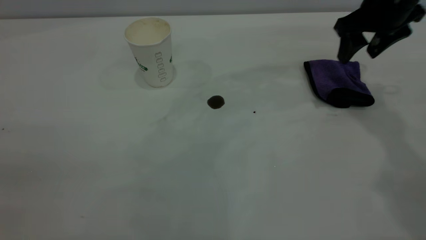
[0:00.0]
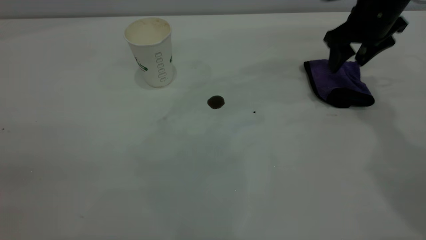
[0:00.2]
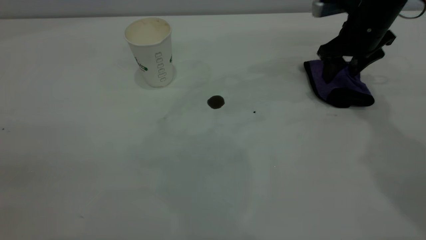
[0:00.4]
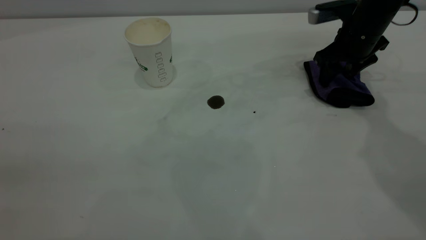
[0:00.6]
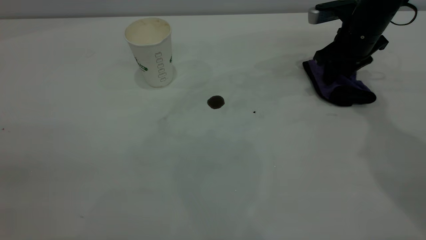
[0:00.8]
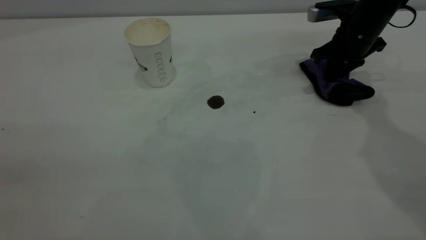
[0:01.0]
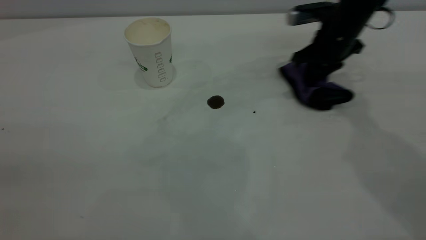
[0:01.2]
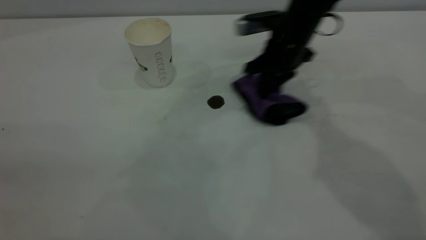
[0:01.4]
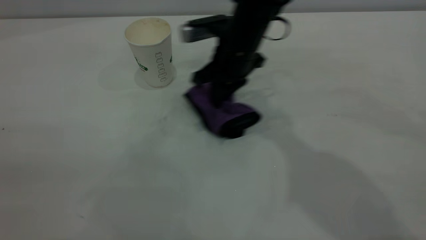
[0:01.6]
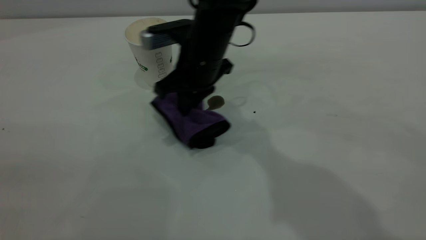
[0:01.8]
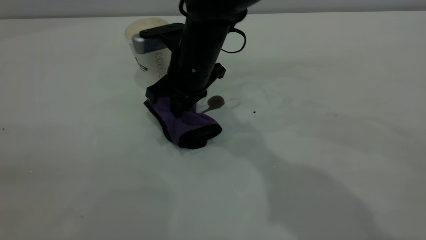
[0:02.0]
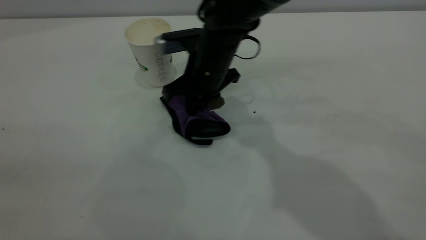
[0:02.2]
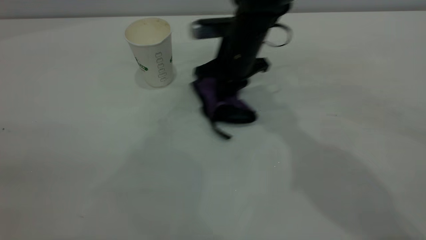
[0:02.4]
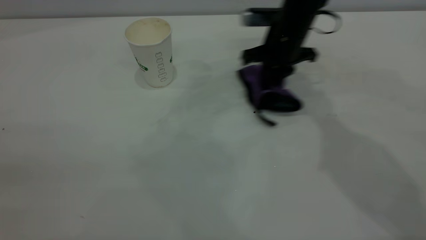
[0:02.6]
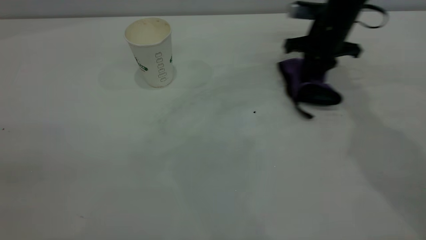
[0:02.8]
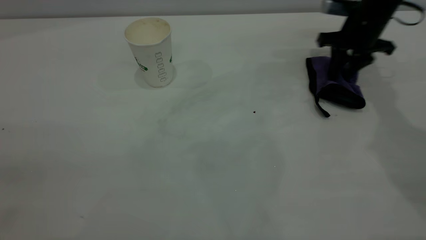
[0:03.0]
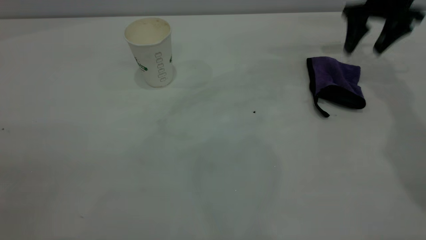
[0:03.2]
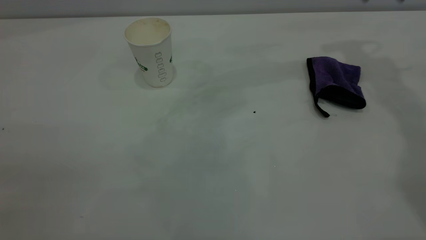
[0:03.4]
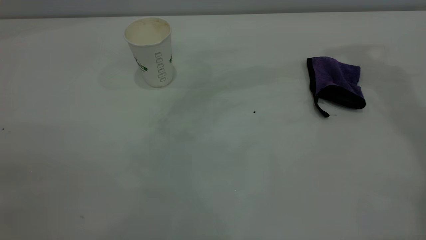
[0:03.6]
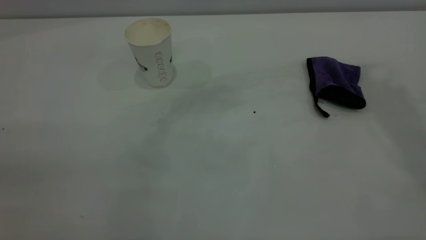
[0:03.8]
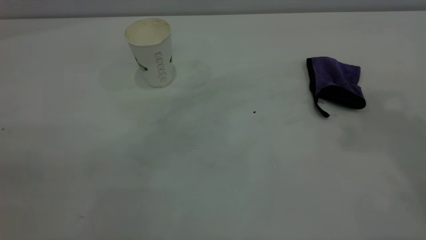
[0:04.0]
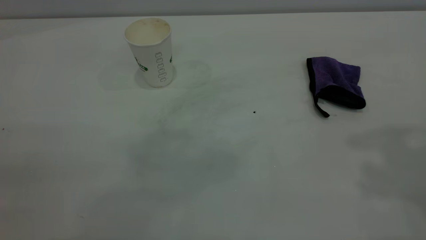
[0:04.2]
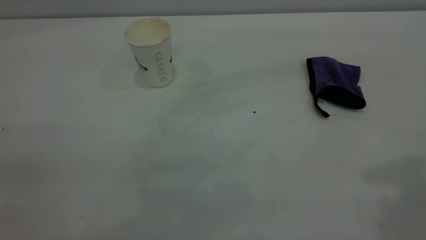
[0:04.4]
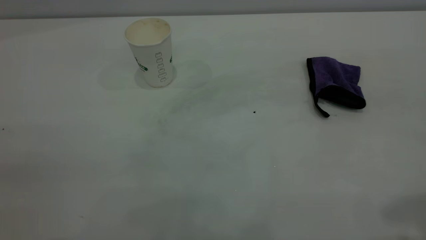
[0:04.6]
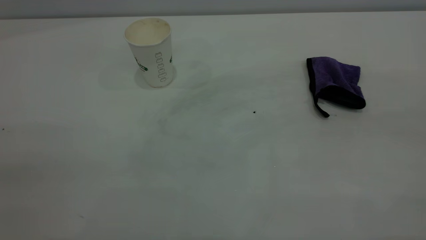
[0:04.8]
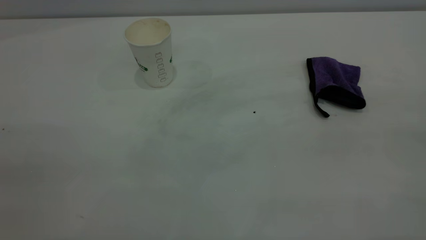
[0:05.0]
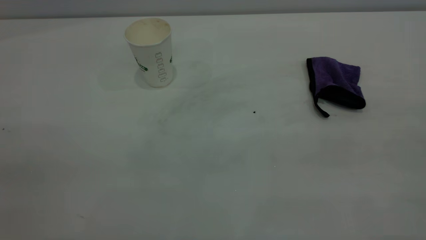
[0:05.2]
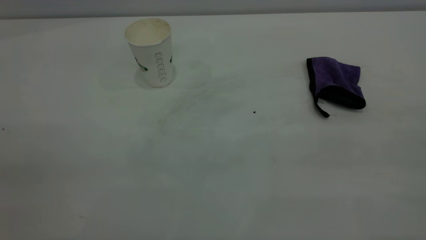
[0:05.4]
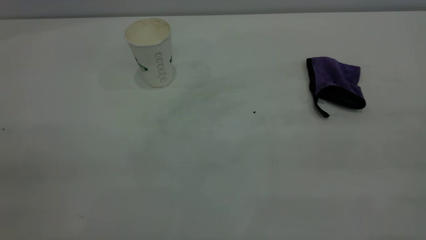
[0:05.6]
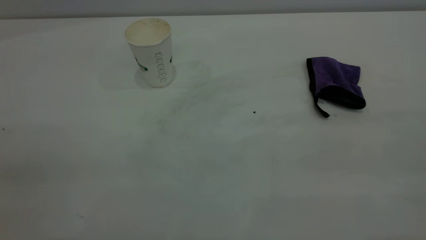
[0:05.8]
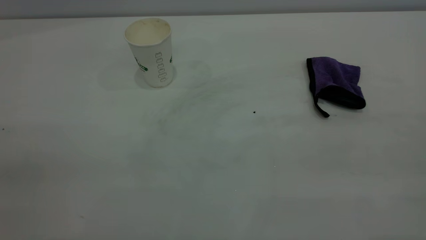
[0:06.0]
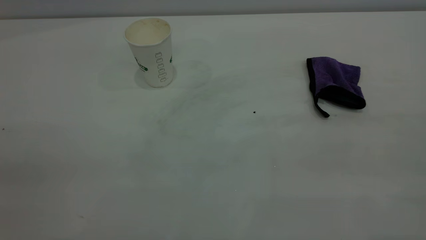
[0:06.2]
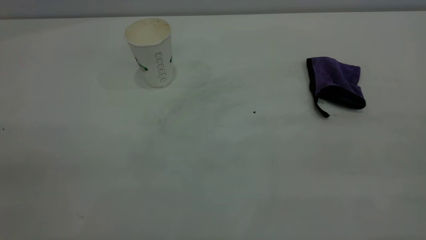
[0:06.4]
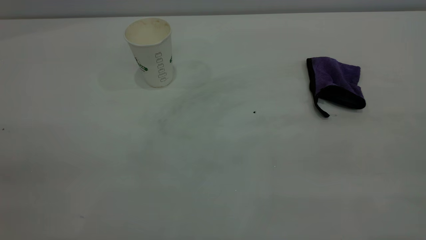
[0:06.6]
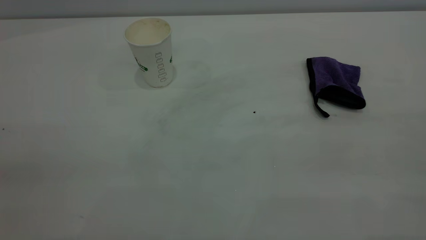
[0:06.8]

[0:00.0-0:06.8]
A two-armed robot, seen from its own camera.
Task of the whole recording: the left gripper pick up the fallen cup and place it upright, the right gripper grasp the purple rag and wipe the coffee stain on the table, the right gripper put the purple rag back in its original position.
Step, 0:00.0 to 0:03.0: Wipe the stains off the table with a rag.
0:00.0 to 0:01.4: The right gripper shifts approximately 15 cm to the left, and closes.
0:01.4 to 0:02.8: The right gripper moves to the right, about 15 cm.
0:02.8 to 0:04.0: The right gripper goes some 40 cm upward and backward, and opens up.

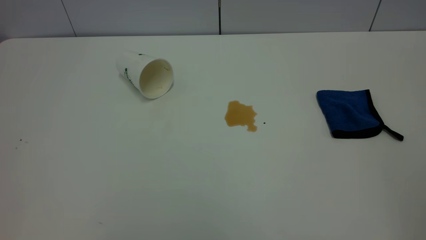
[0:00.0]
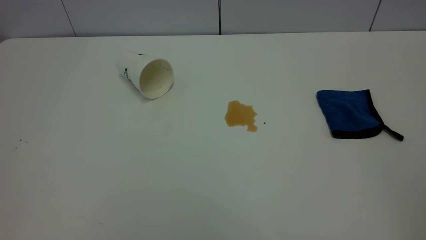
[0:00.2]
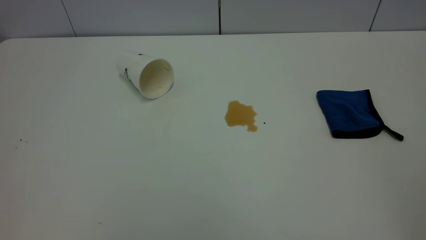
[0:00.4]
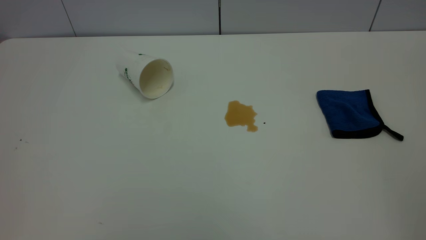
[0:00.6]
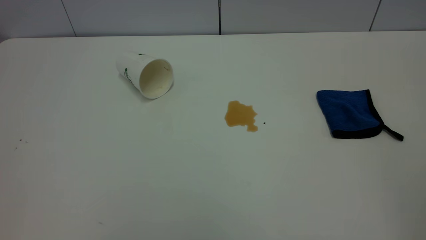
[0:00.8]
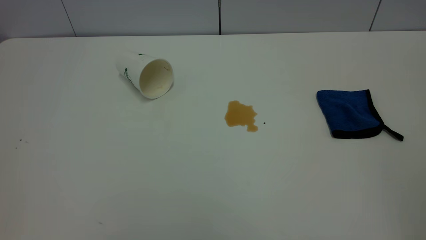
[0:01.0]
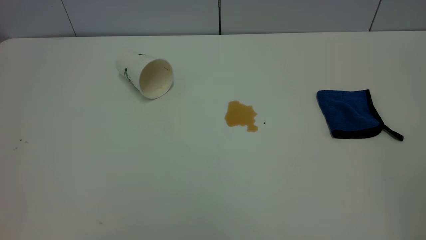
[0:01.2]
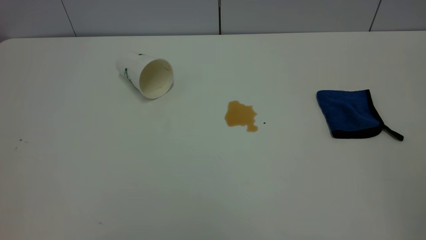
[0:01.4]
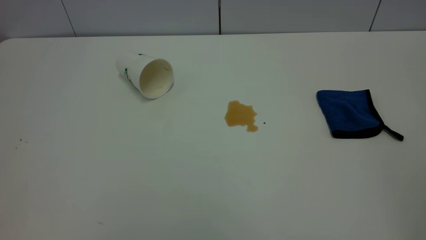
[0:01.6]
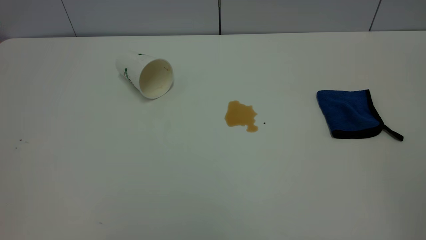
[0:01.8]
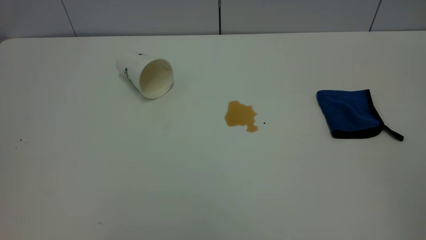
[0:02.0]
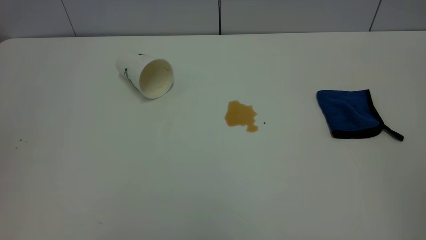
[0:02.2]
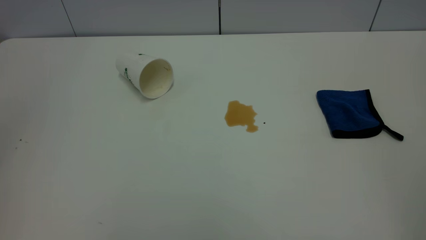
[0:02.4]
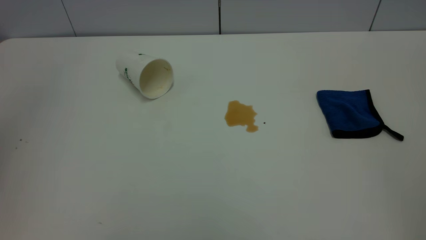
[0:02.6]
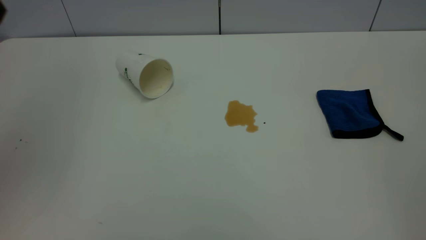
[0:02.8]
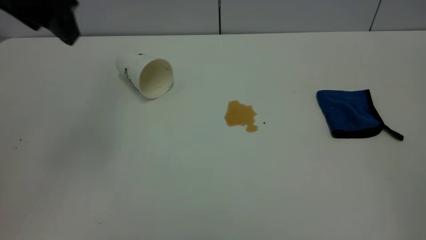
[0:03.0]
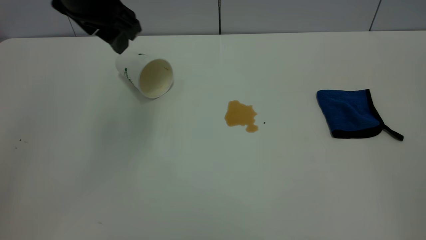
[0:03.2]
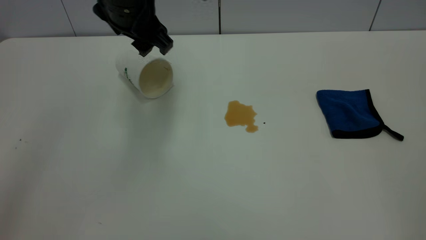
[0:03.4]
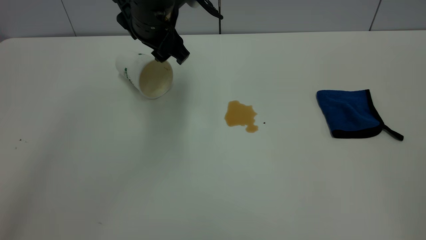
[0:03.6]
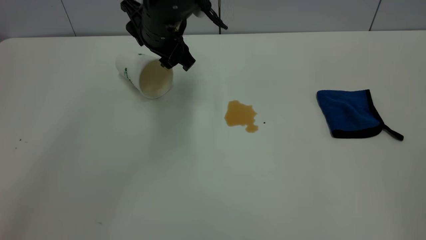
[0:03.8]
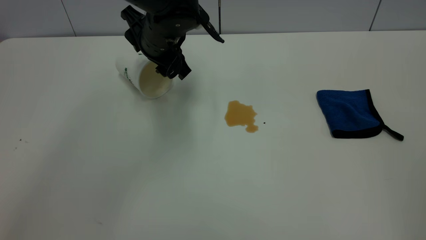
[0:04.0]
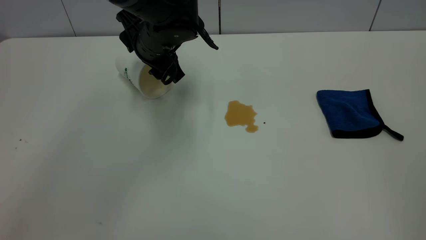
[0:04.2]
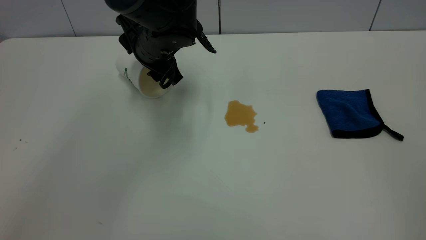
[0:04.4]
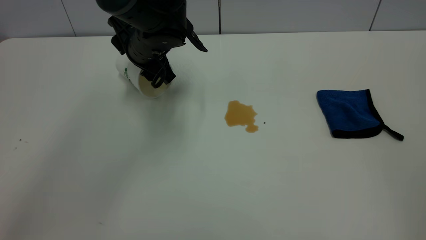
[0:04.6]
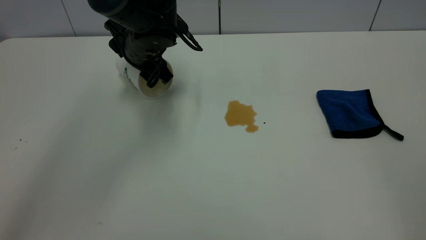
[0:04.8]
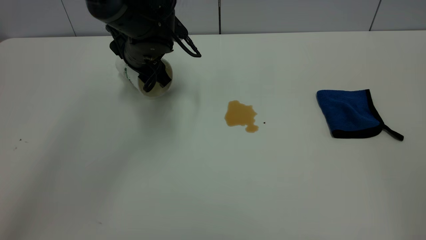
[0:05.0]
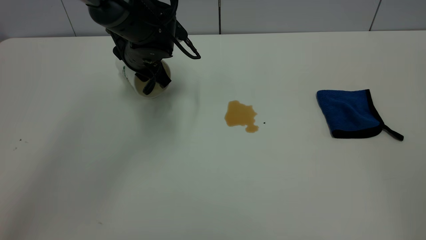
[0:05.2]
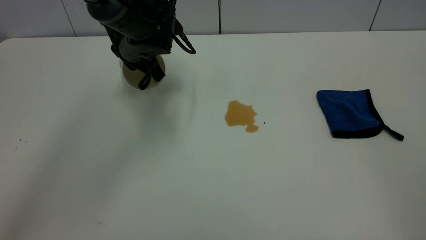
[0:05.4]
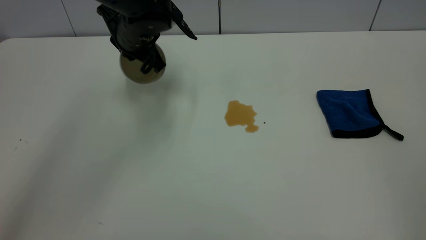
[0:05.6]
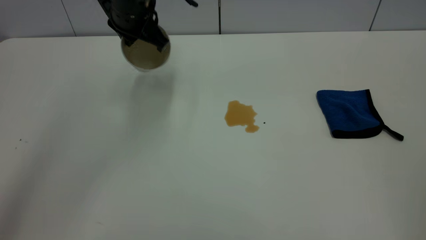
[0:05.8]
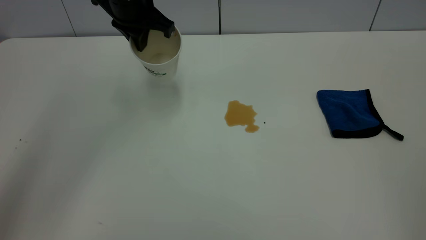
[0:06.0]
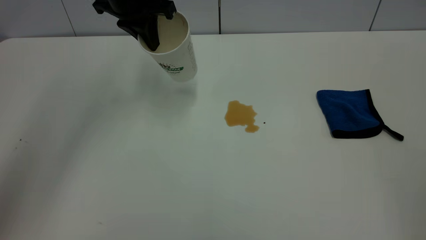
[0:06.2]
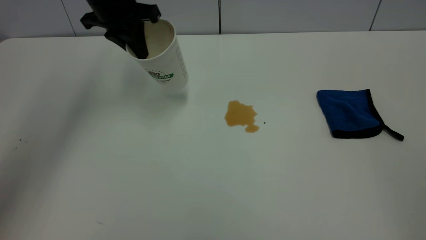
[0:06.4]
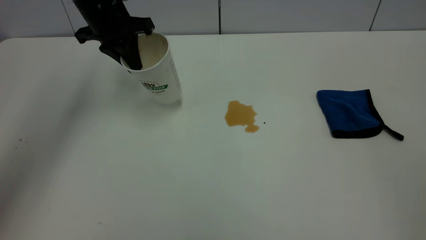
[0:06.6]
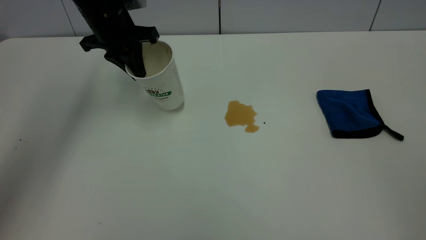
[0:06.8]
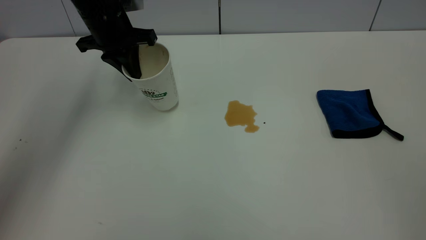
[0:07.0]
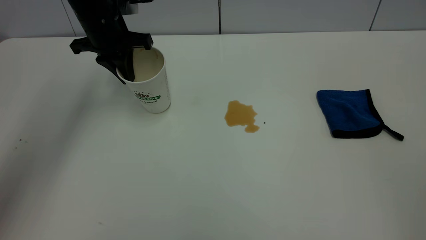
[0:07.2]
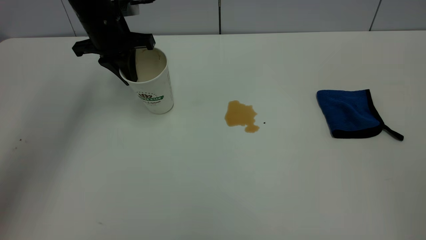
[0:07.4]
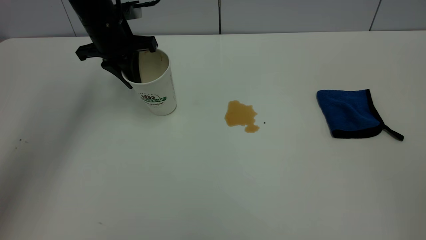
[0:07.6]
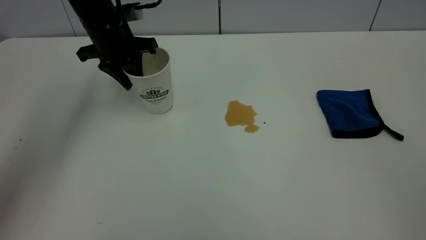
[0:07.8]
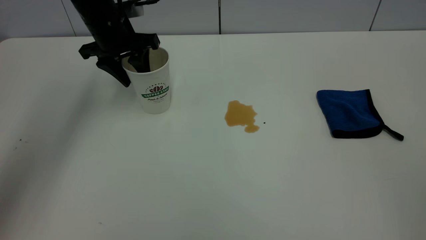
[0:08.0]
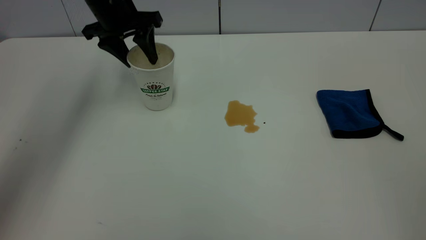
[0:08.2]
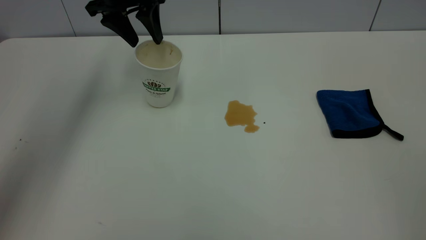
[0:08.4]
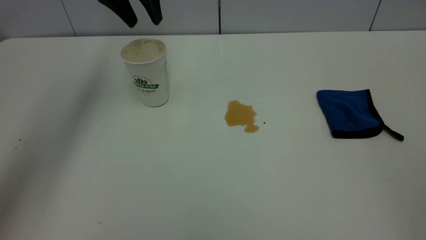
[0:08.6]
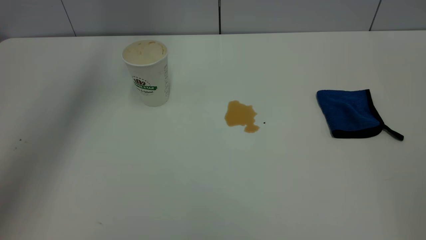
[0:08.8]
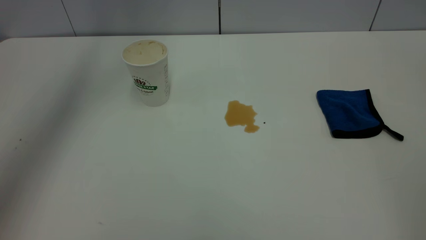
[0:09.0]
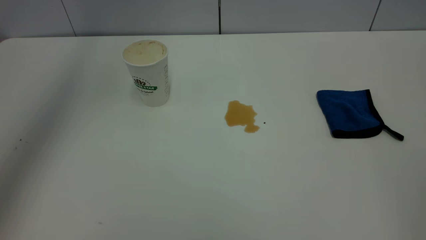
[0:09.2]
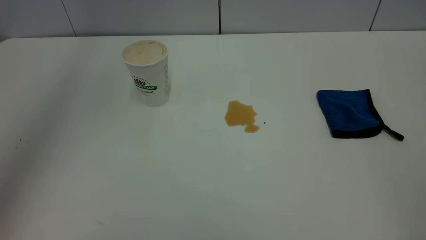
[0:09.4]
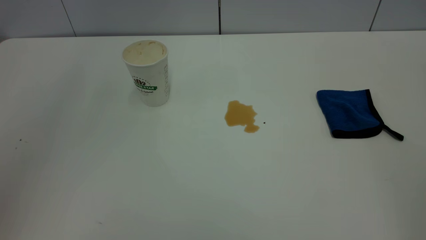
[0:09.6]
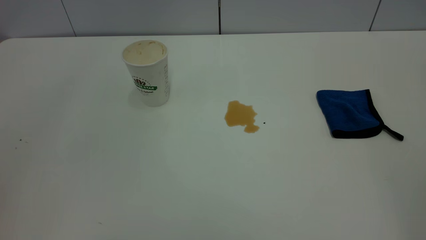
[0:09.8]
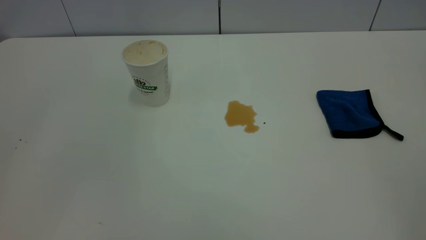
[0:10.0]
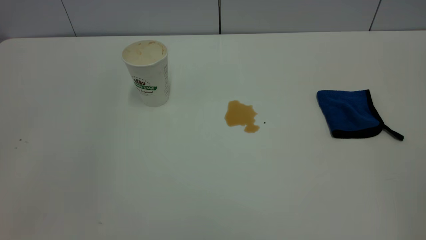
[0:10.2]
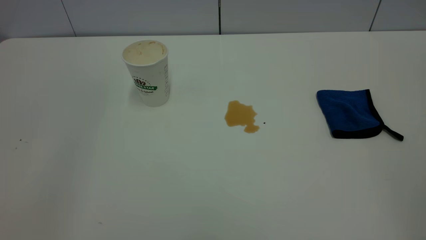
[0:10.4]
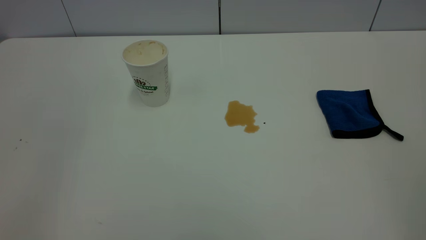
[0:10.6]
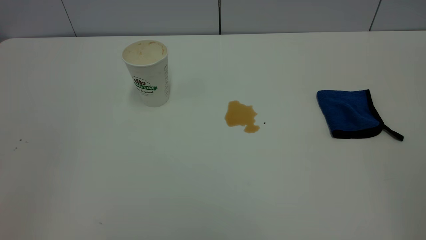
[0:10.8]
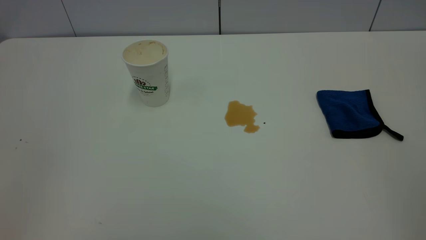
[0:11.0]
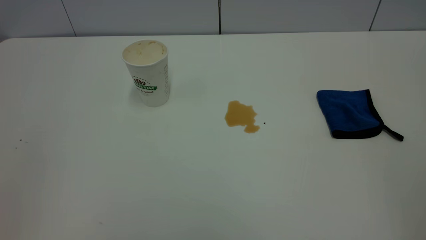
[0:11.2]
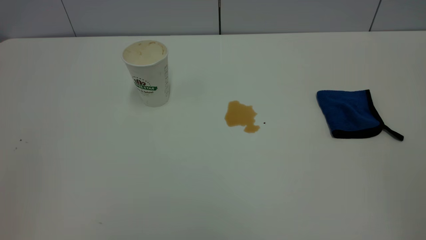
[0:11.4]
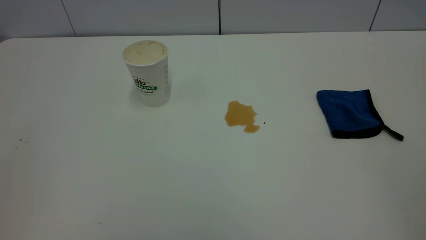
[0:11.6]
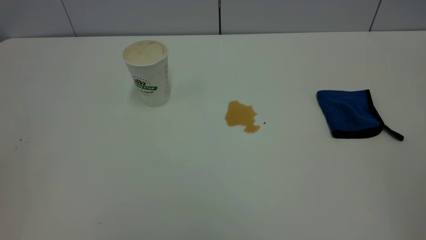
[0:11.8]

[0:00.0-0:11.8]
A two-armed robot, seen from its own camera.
Task of the whole recording: the left gripper pick up the fallen cup and place it upright, the right gripper grasp the blue rag and wipe the tea stain on the table, the right gripper put the blue rag back in its original position.
Step, 0:00.0 to 0:08.4: Stand the paper cup upright.
0:00.0 to 0:01.4: Both grippers stay put.
0:01.4 to 0:03.0: The left gripper moves forward, about 35 cm.
0:03.0 to 0:04.4: The left gripper goes approximately 25 cm downward, forward and to the right.
0:04.4 to 0:06.0: The left gripper is displaced upward by some 10 cm, and closes.
0:06.0 to 0:07.4: The left gripper travels to the left and downward by approximately 10 cm.
0:07.4 to 0:08.8: The left gripper goes approximately 20 cm upward, and opens up.
0:08.8 to 0:10.4: The left gripper heads backward, covering roughly 35 cm.
